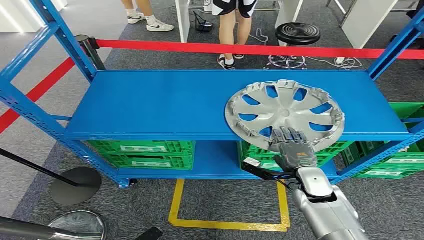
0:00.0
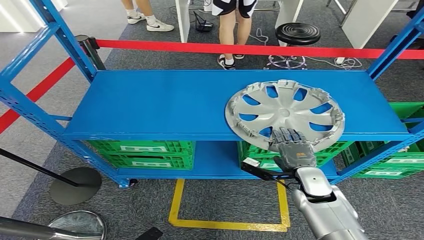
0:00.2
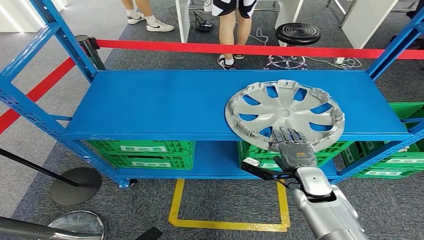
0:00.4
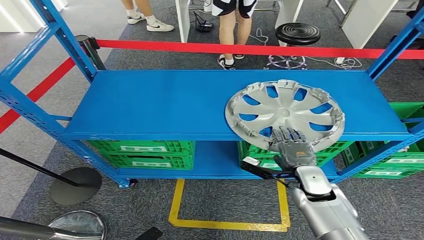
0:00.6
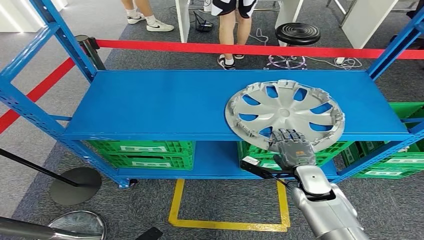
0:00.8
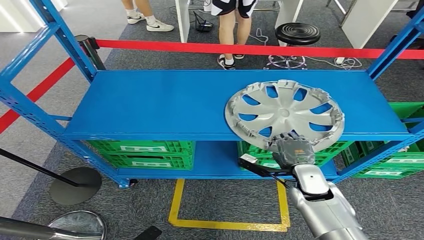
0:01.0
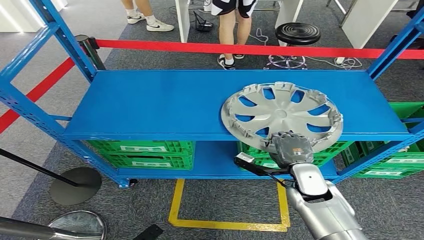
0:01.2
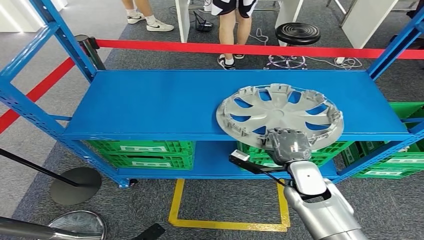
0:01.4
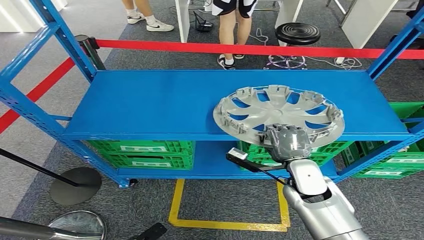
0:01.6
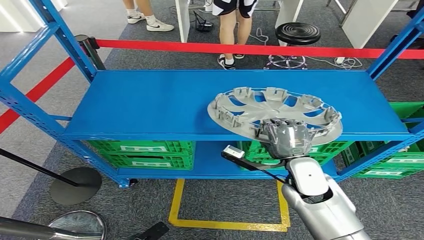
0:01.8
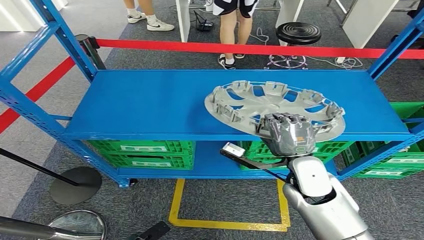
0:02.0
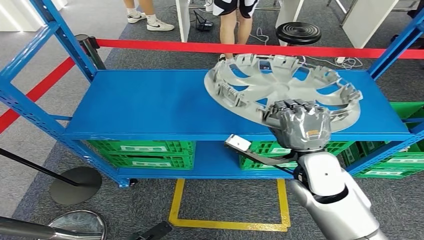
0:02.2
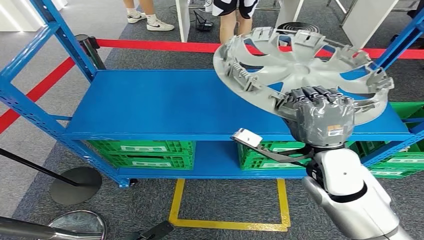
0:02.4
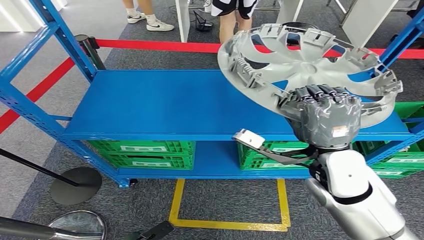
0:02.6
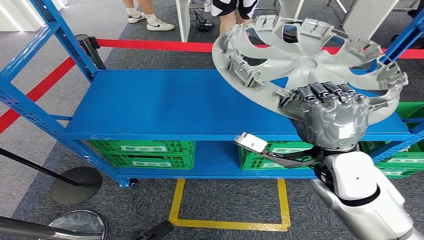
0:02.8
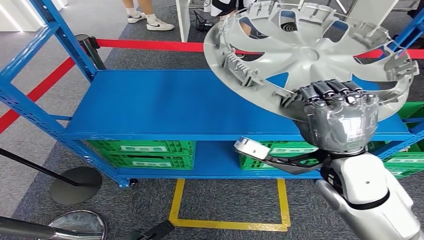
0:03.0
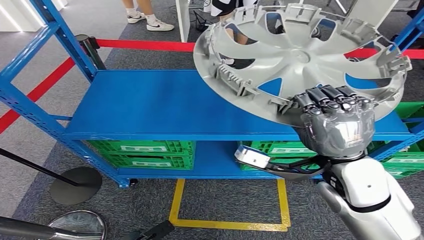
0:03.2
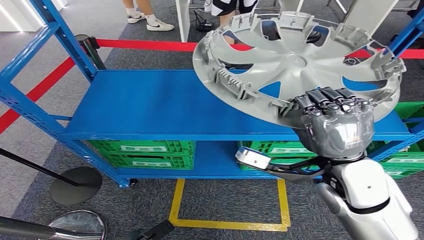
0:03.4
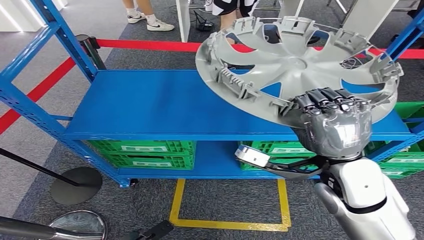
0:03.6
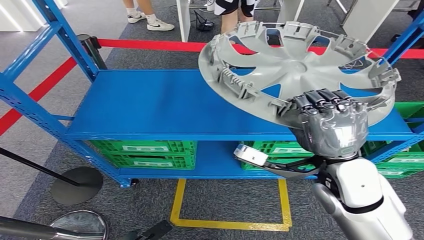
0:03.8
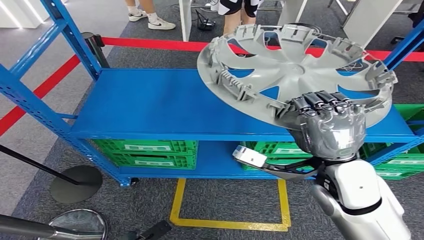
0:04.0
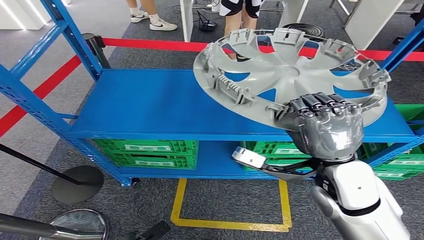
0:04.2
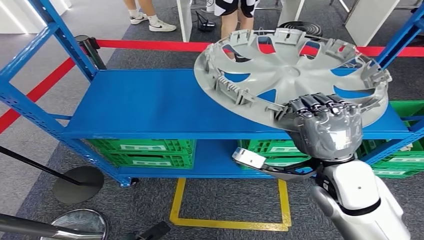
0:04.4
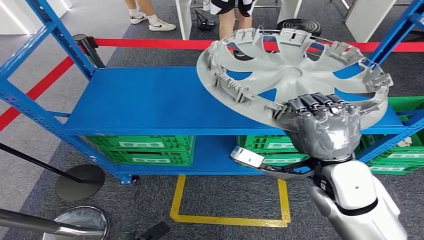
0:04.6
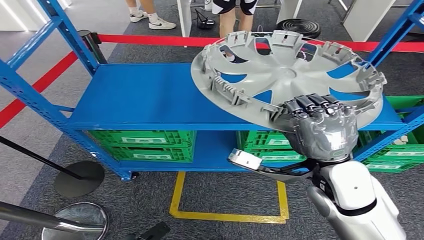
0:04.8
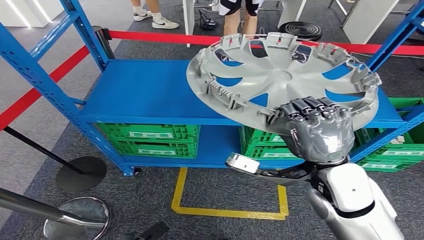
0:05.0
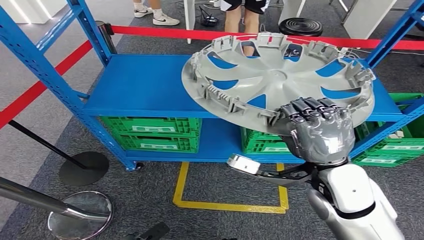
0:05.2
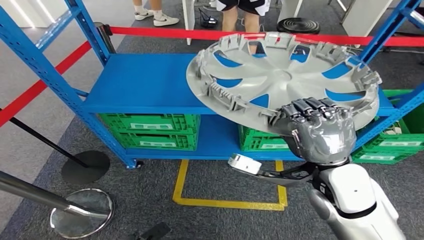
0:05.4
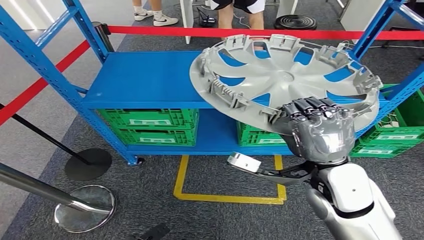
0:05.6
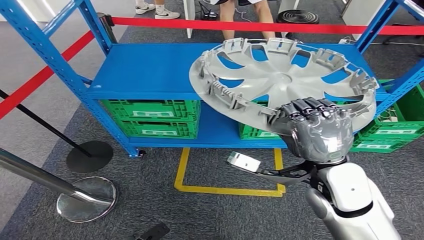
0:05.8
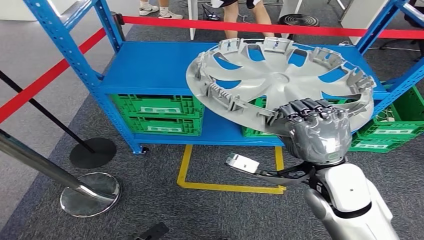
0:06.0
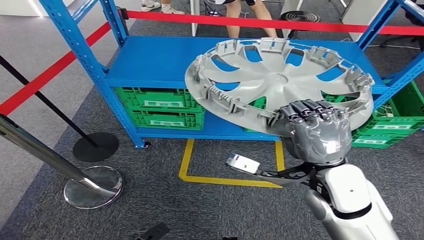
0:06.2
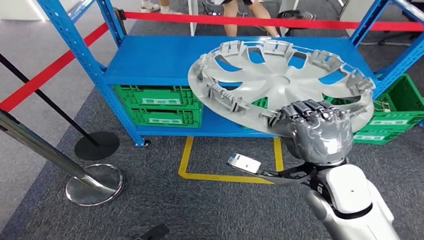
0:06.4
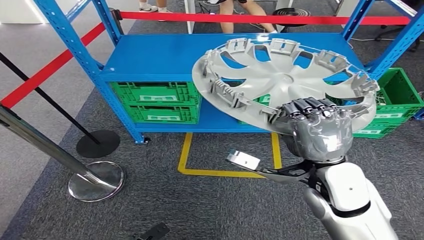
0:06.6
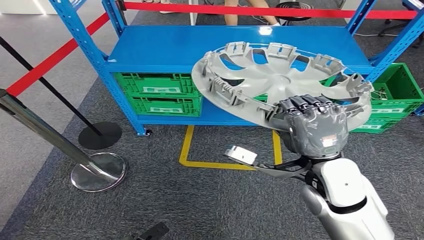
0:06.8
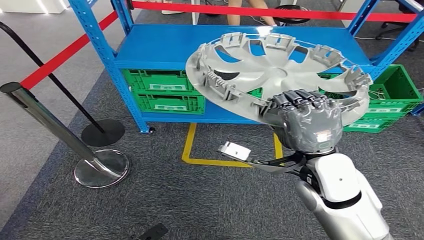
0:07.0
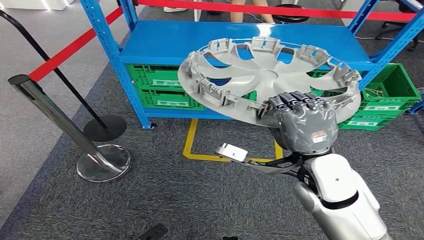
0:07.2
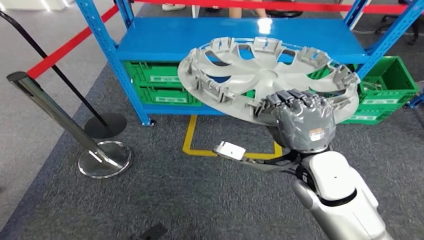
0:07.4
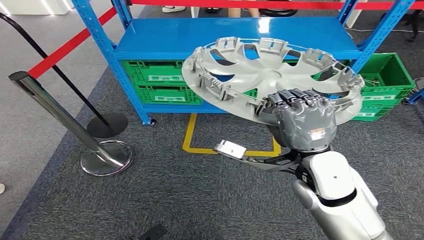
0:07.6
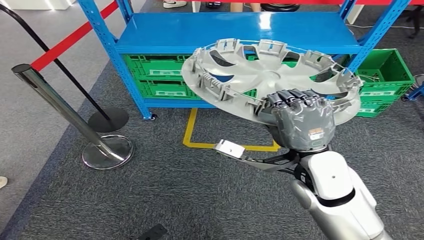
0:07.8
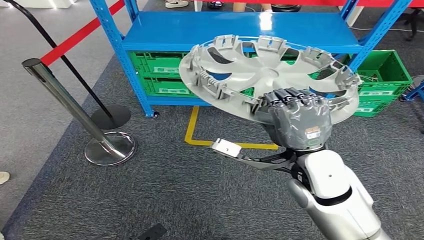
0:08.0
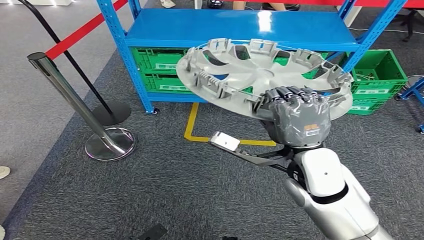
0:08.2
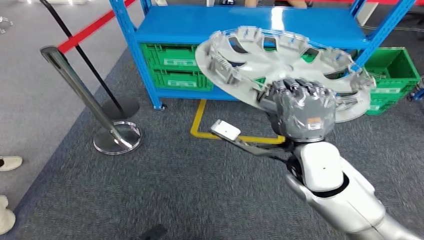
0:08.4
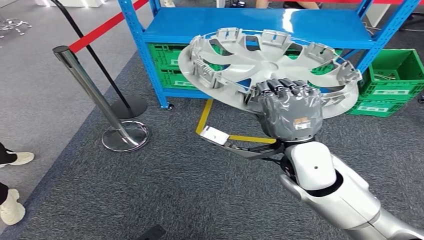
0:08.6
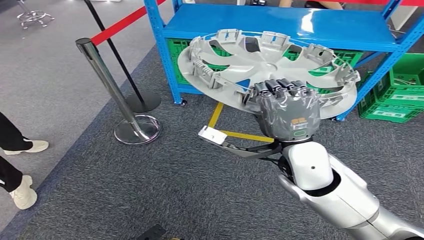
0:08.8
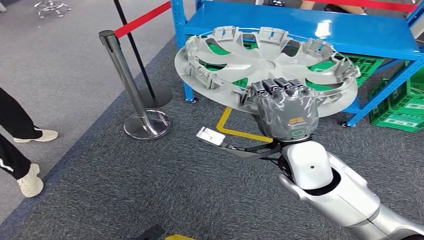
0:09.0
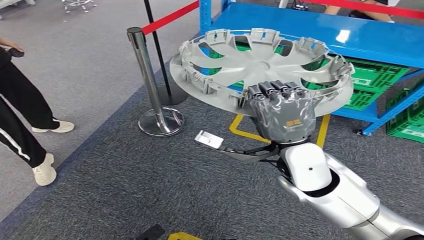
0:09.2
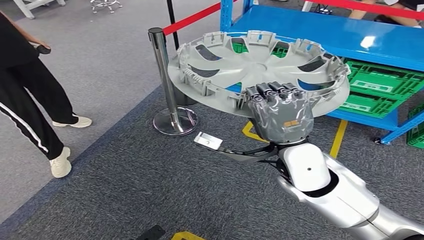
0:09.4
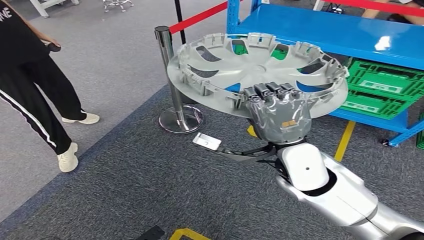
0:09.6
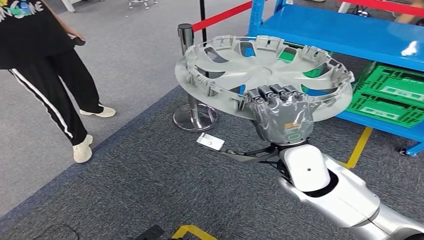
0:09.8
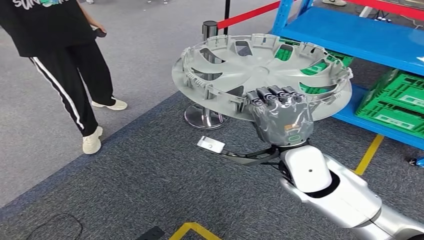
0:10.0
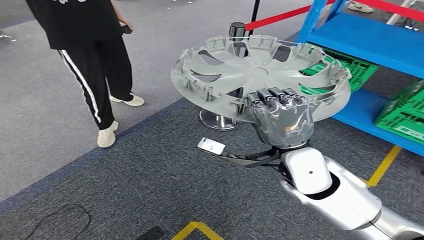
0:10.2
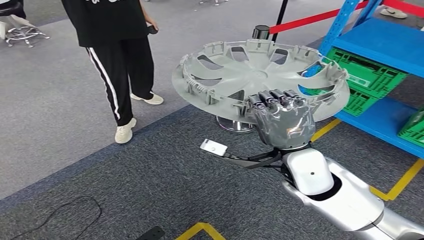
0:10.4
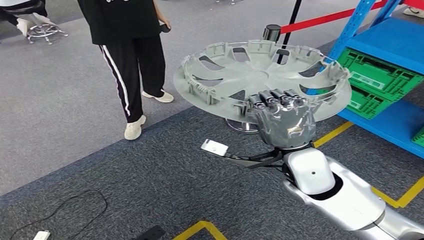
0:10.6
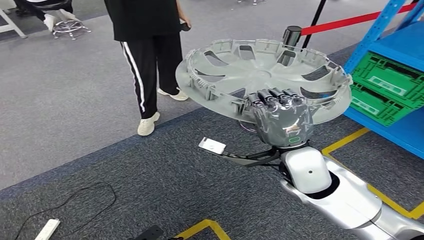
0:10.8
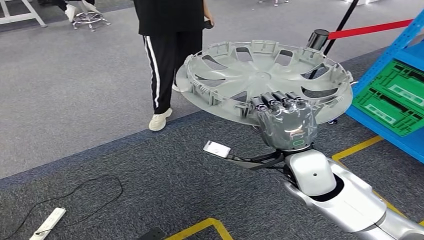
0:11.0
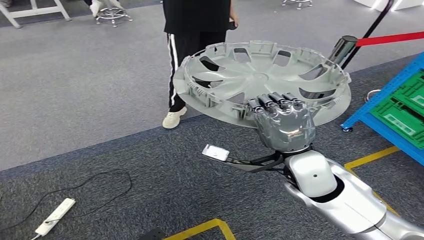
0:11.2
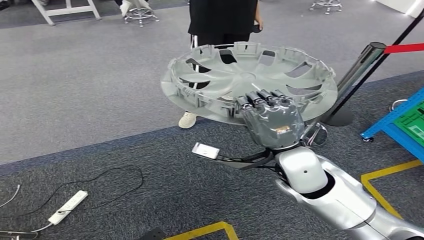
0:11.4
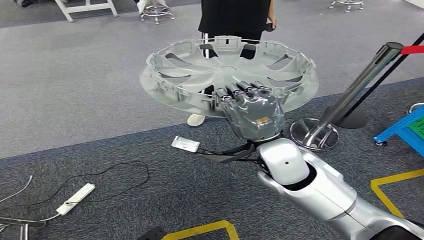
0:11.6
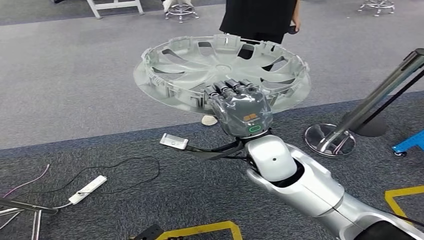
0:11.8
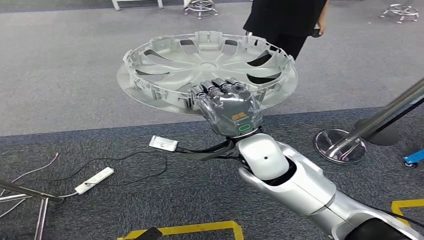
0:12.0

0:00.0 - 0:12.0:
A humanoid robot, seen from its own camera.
Step, 0:00.0 - 0:02.8: Take small components from the rack.

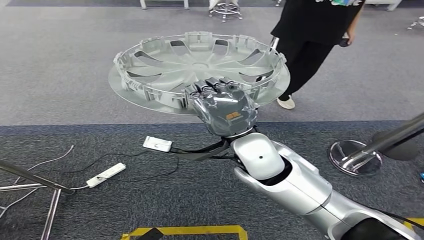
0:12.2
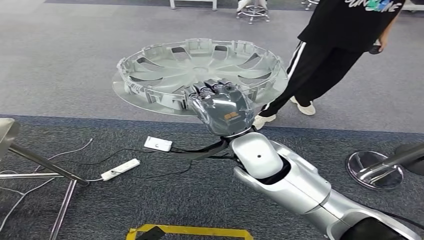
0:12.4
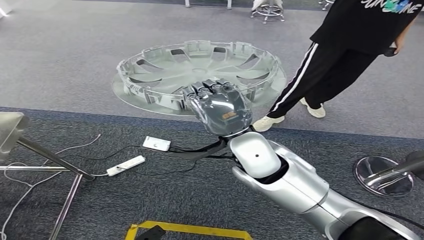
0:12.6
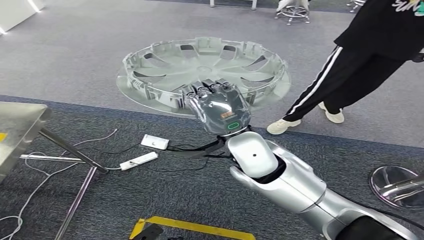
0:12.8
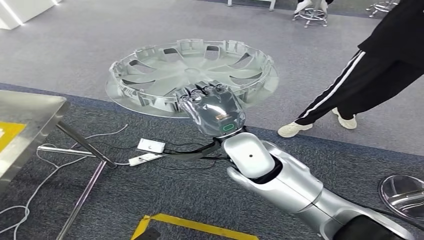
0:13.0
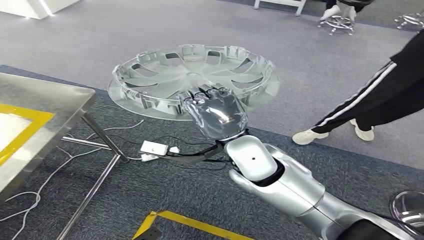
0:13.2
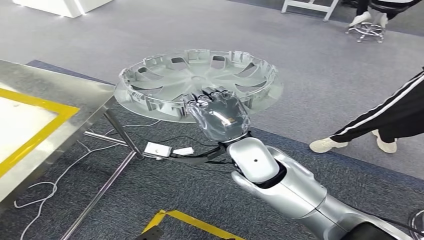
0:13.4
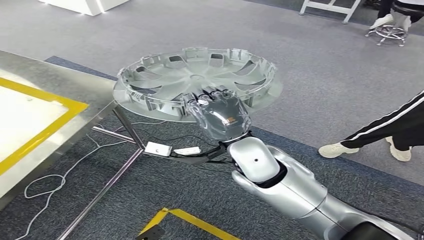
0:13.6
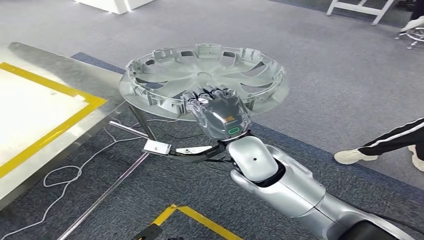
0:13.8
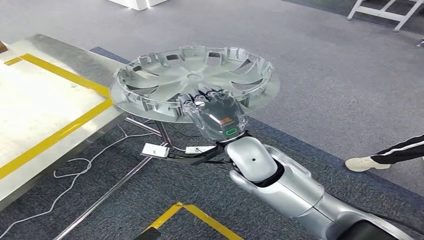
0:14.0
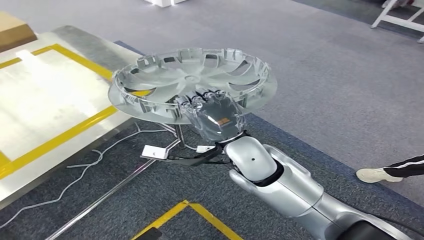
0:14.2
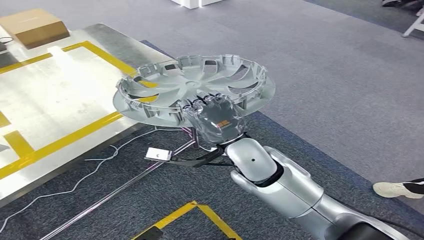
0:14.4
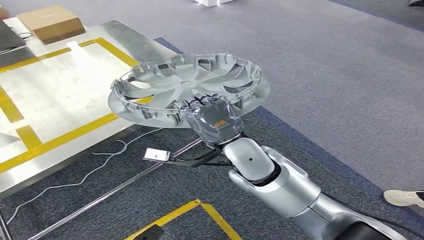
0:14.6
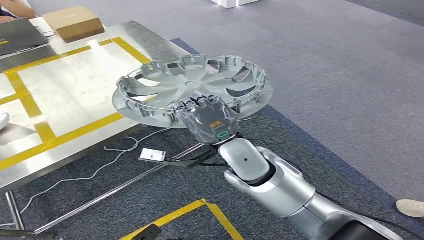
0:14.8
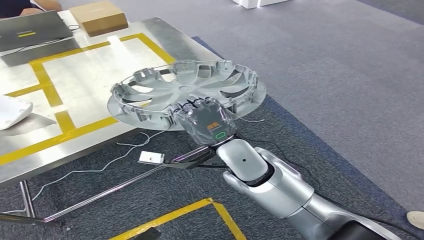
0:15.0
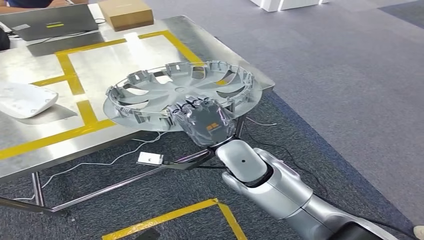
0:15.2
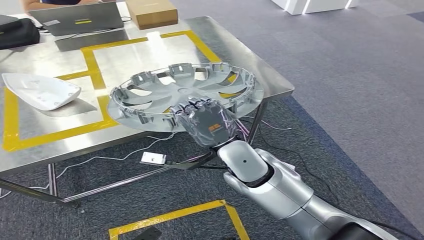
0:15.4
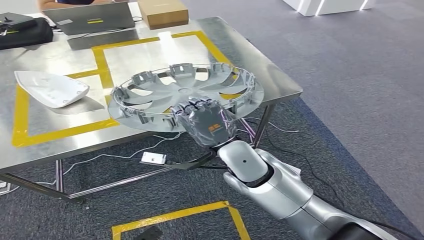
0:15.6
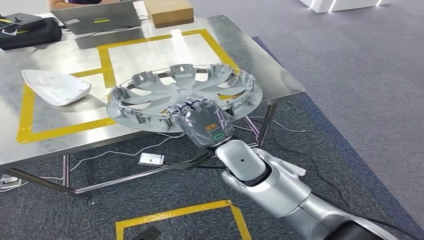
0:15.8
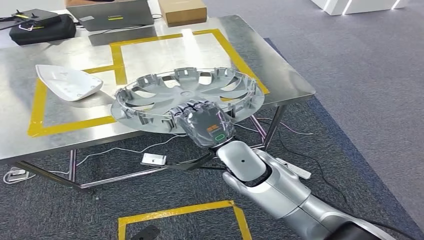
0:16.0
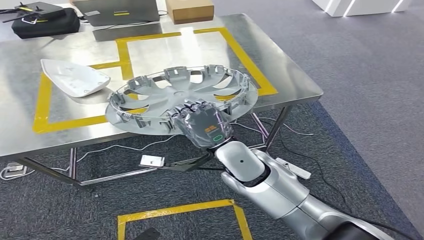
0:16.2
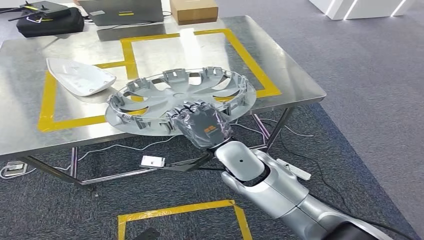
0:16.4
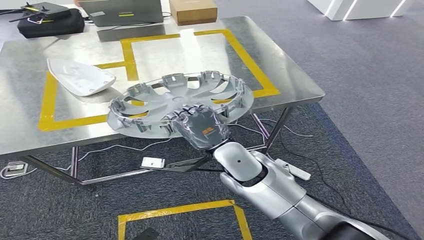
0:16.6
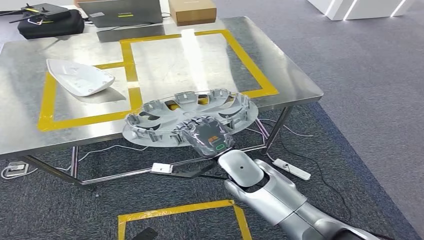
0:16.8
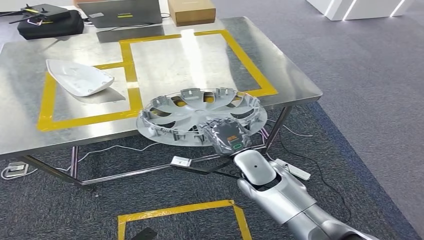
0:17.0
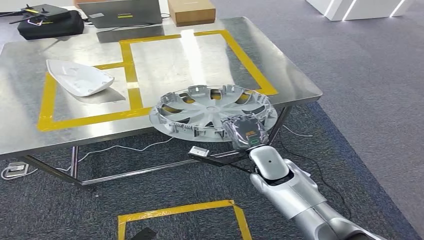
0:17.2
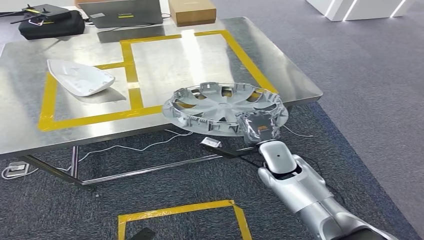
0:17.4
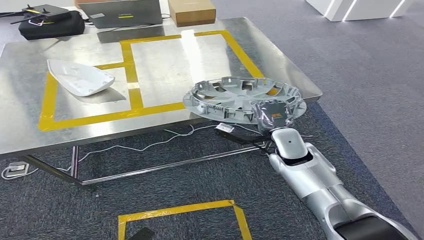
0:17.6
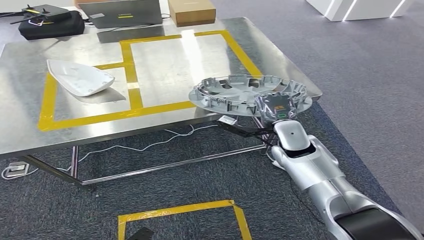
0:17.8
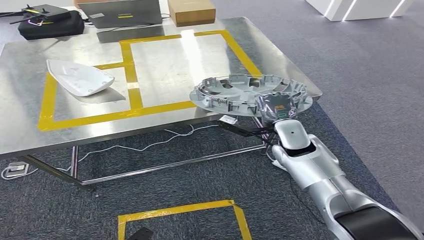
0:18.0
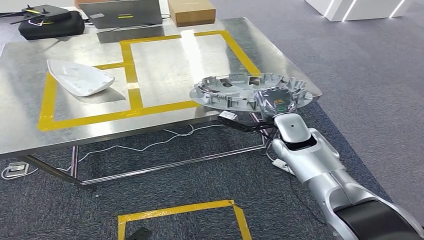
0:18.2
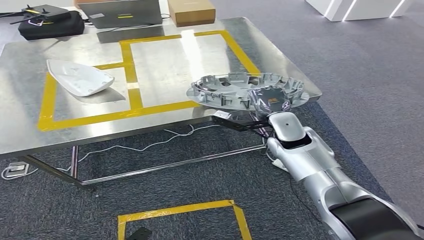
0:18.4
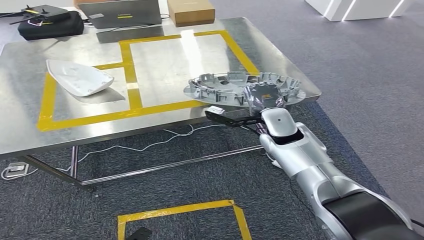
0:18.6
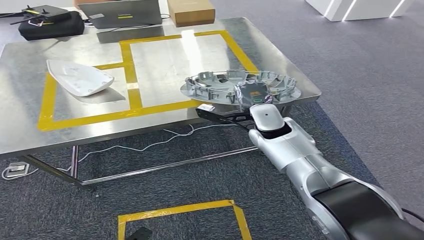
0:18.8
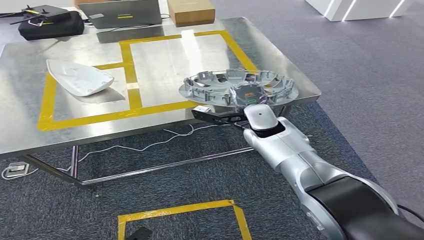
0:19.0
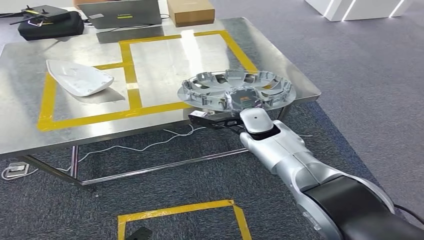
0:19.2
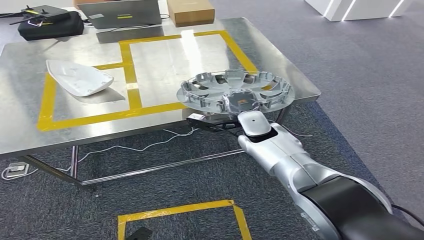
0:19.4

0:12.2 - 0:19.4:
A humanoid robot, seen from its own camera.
Step, 0:12.2 - 0:16.4: Move the small parts to the workbench.
0:18.0 - 0:19.4: The right hand shifts about 10 cm to the left.
